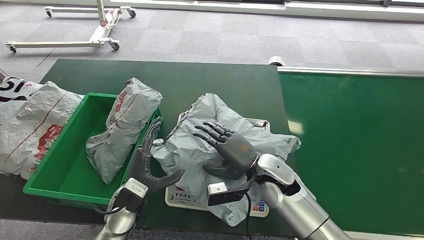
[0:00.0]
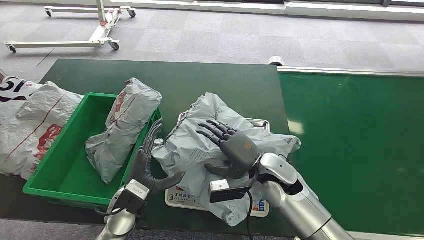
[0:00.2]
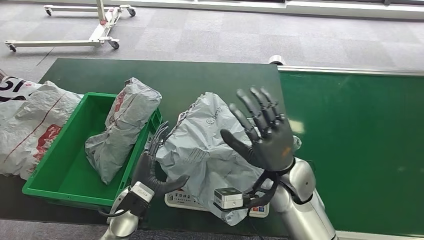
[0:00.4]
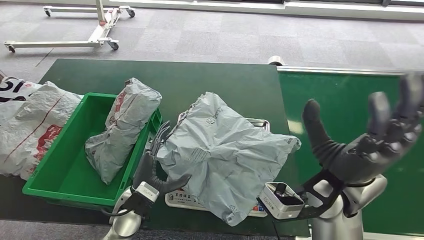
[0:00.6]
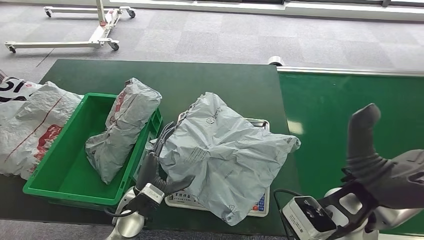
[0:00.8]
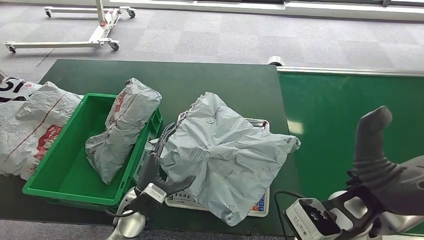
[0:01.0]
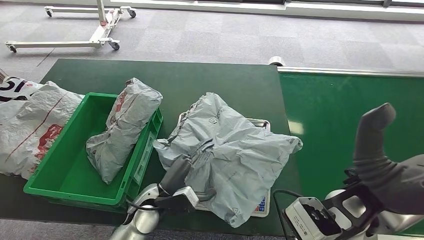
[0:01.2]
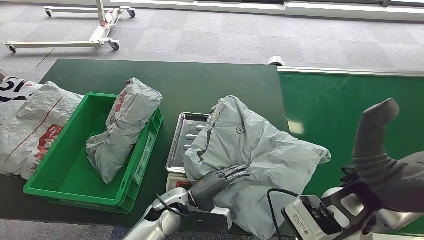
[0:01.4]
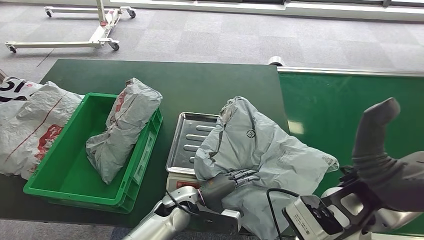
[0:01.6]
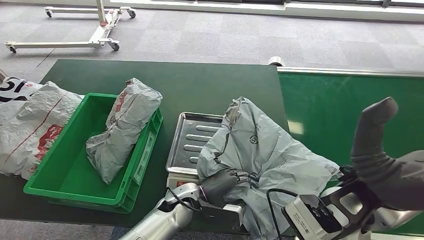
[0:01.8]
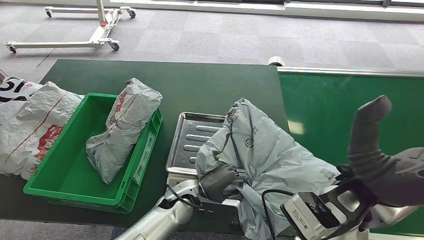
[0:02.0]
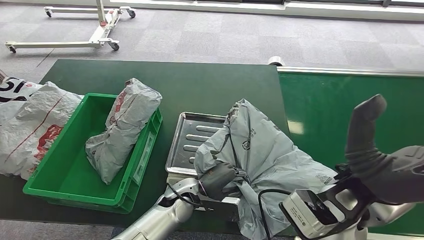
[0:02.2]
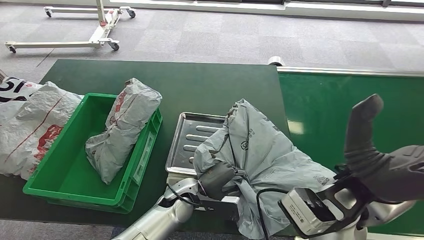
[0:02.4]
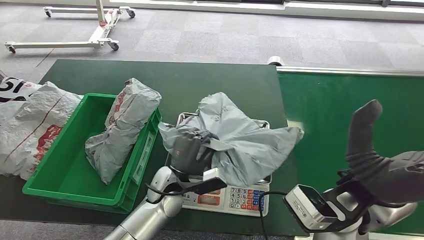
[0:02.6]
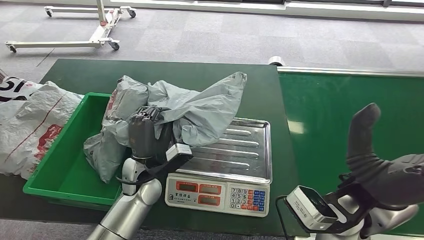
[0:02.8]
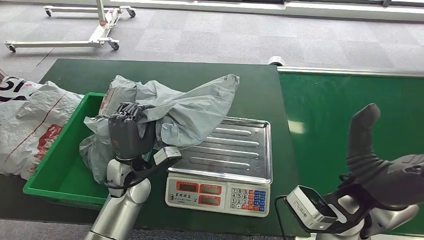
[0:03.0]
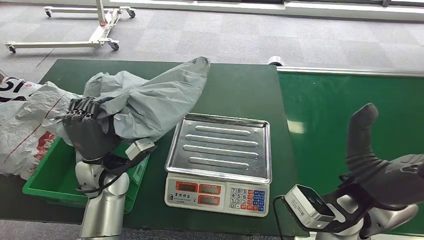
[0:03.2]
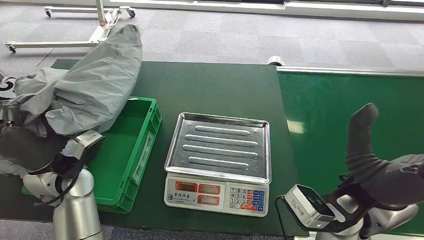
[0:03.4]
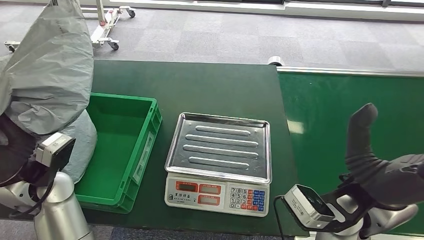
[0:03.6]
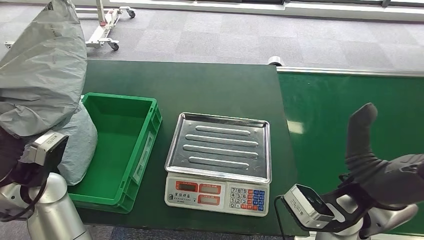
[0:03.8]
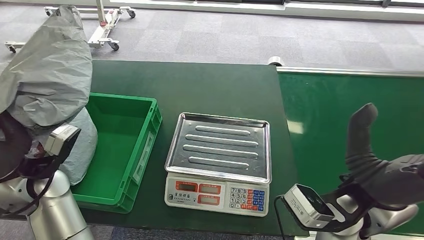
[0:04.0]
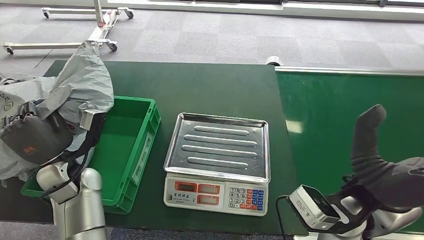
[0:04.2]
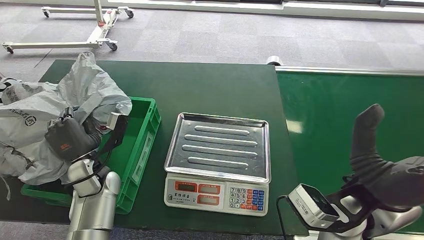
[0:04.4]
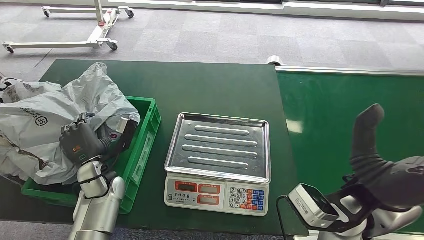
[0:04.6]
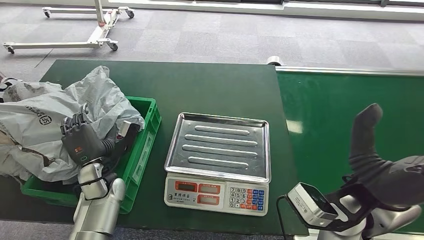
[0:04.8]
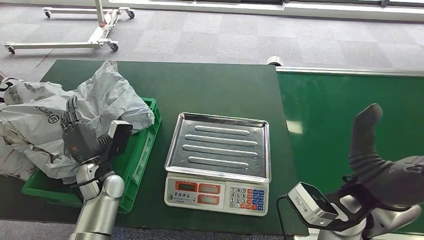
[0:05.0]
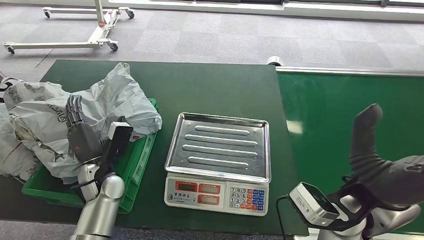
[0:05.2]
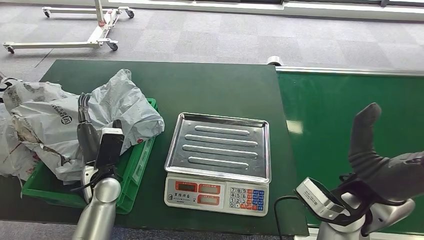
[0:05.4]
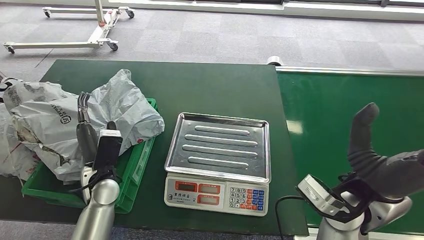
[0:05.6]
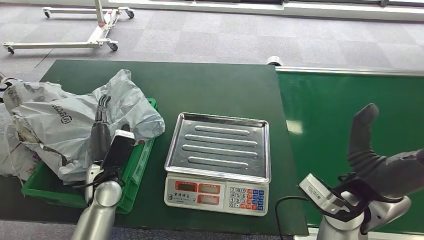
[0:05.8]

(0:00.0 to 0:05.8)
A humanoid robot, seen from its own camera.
Step, 0:00.2 - 0:03.0: Pick up the package from the inbound machine.
Step, 0:03.2 - 0:05.8: Place the package into the parcel locker.

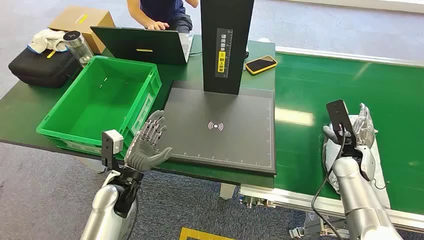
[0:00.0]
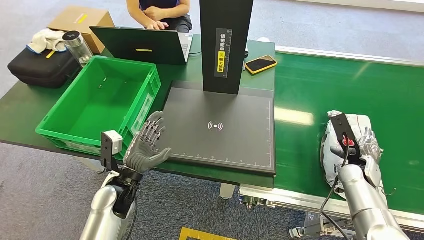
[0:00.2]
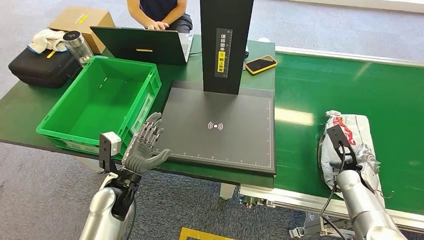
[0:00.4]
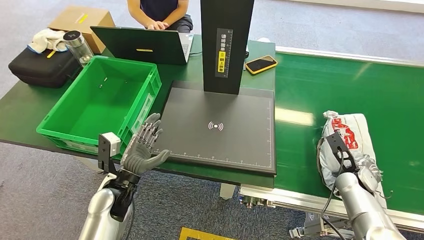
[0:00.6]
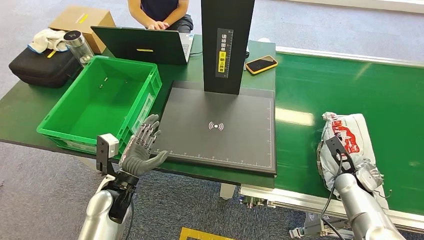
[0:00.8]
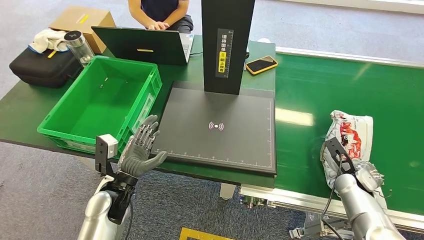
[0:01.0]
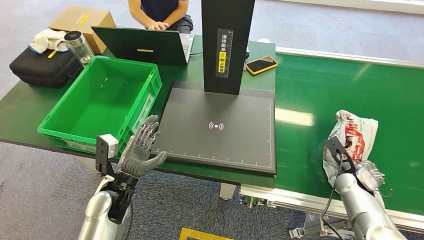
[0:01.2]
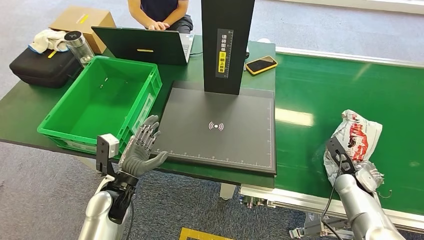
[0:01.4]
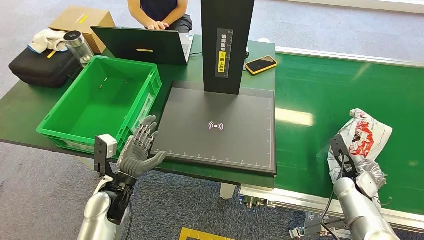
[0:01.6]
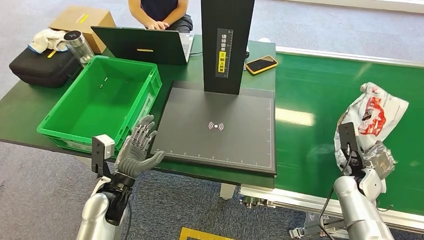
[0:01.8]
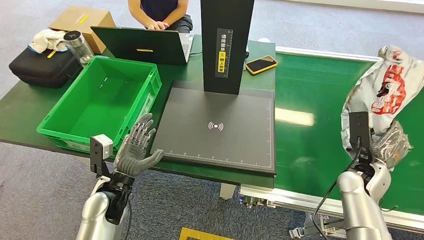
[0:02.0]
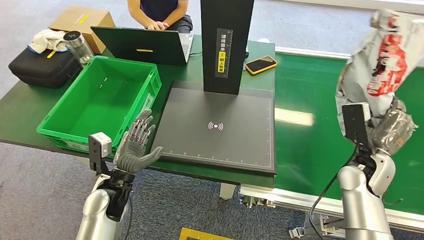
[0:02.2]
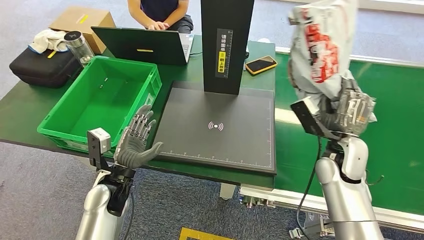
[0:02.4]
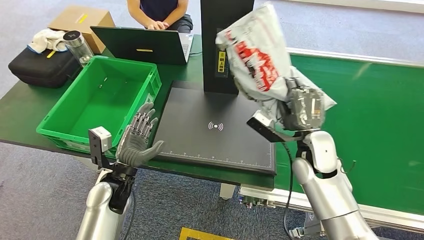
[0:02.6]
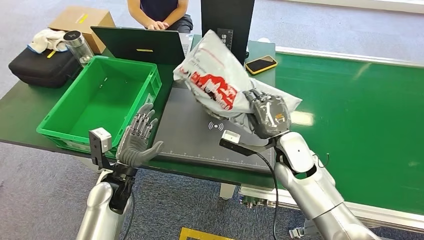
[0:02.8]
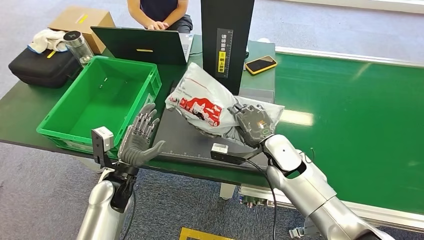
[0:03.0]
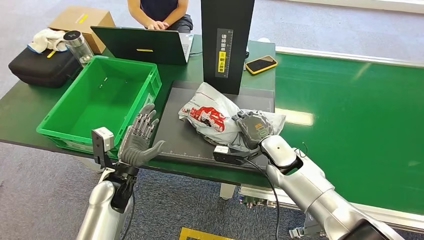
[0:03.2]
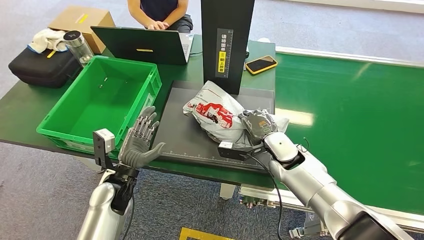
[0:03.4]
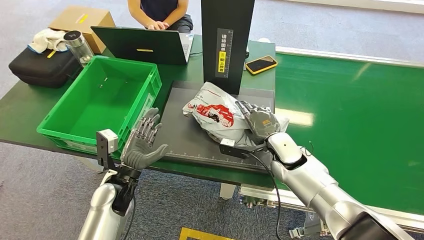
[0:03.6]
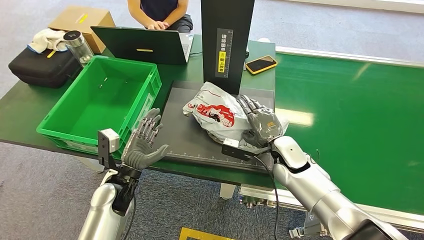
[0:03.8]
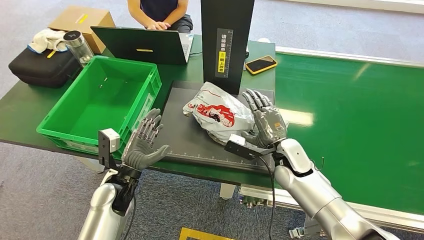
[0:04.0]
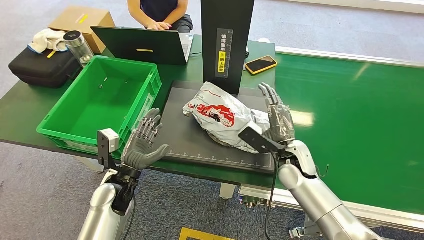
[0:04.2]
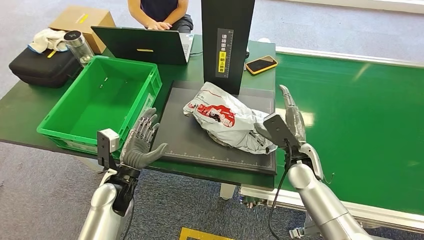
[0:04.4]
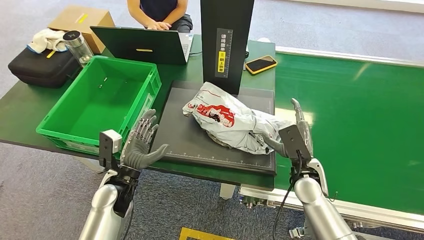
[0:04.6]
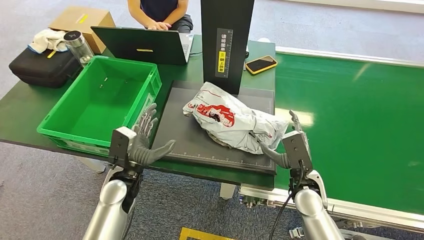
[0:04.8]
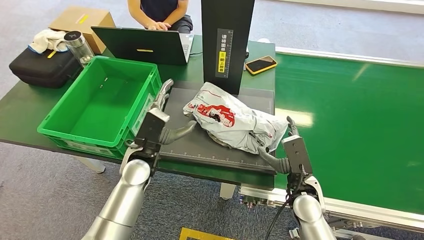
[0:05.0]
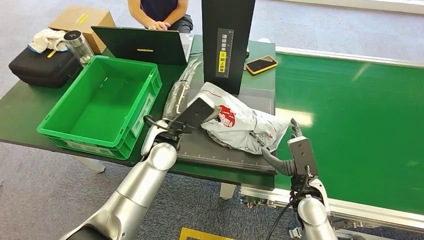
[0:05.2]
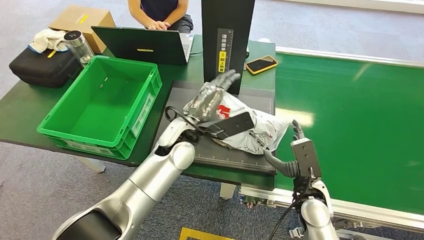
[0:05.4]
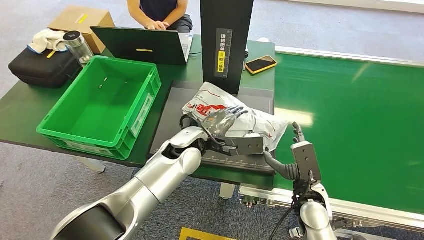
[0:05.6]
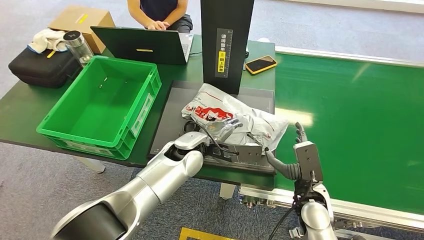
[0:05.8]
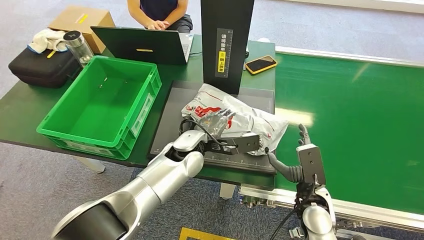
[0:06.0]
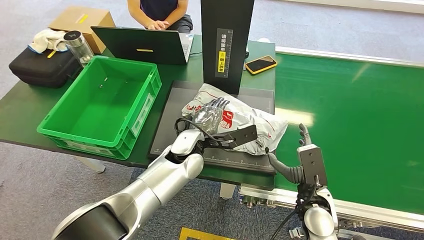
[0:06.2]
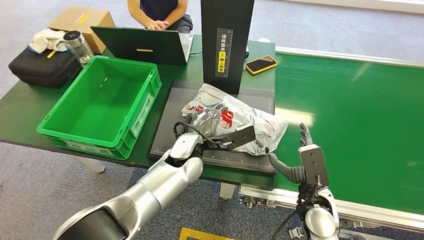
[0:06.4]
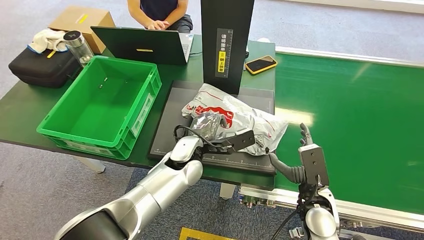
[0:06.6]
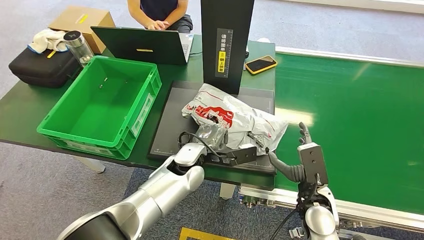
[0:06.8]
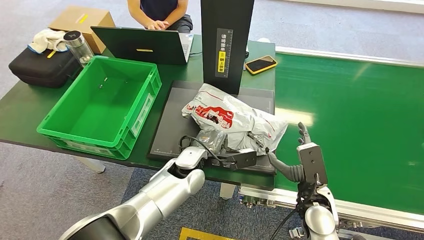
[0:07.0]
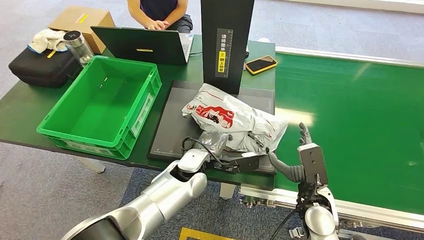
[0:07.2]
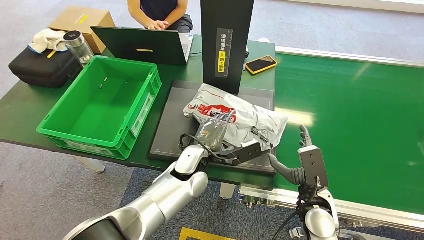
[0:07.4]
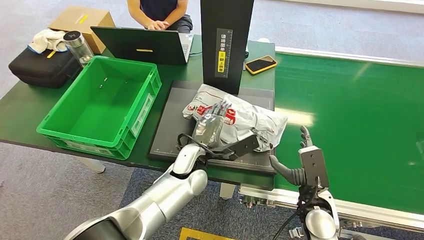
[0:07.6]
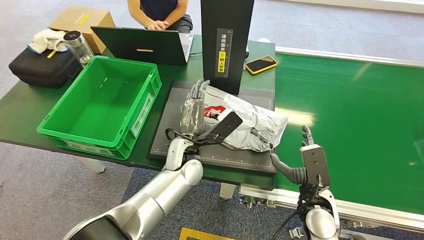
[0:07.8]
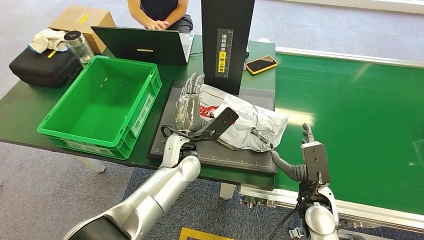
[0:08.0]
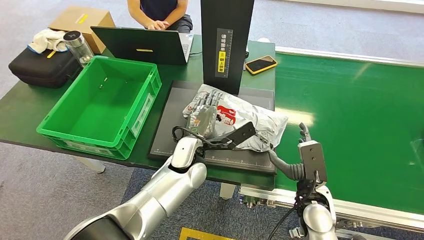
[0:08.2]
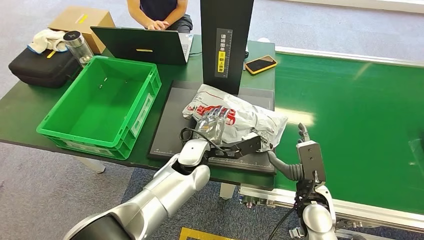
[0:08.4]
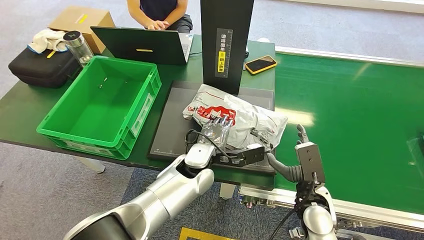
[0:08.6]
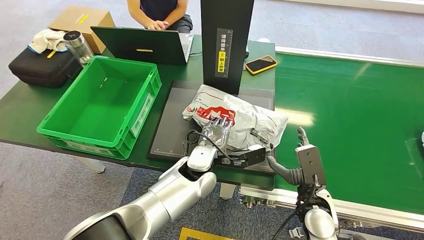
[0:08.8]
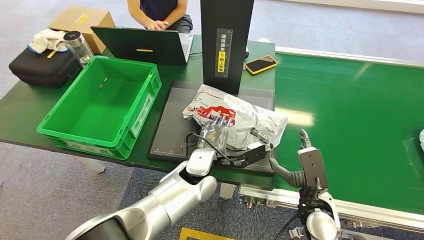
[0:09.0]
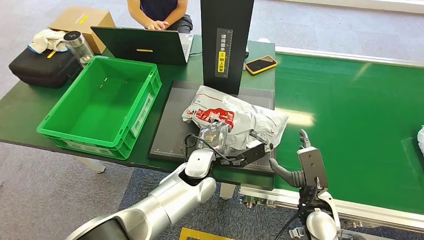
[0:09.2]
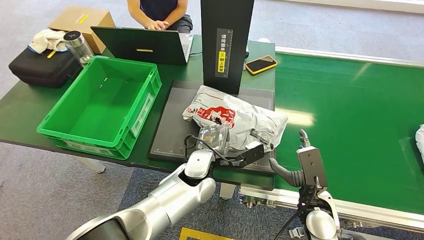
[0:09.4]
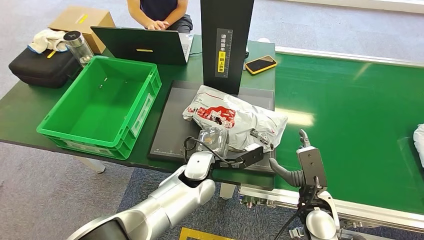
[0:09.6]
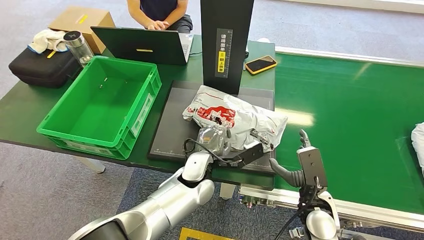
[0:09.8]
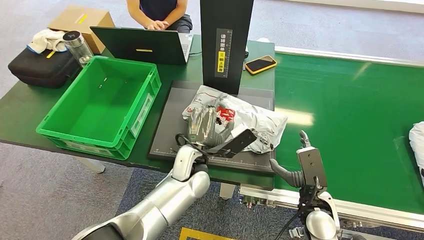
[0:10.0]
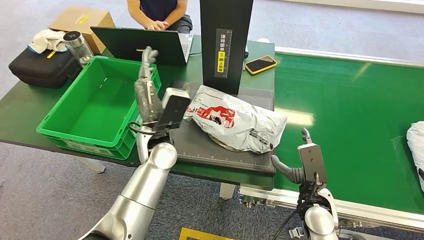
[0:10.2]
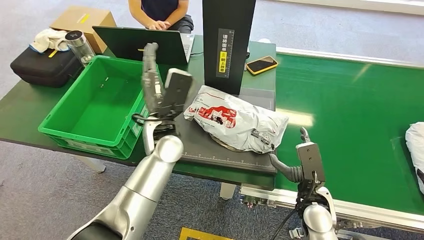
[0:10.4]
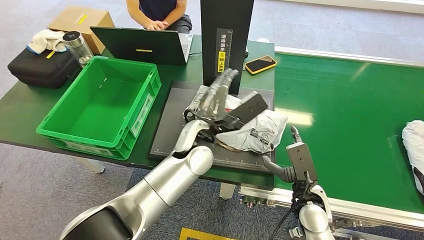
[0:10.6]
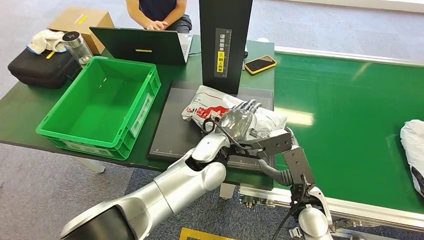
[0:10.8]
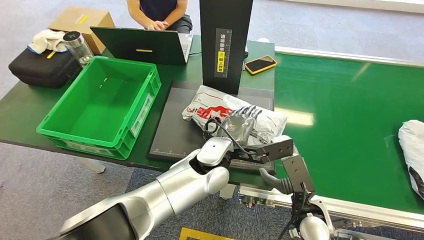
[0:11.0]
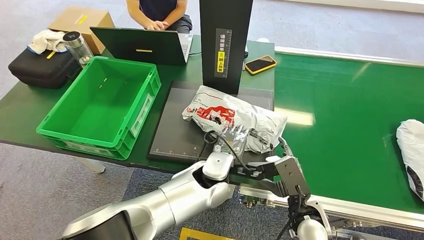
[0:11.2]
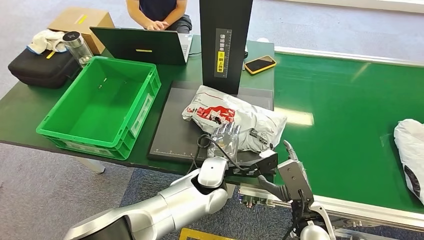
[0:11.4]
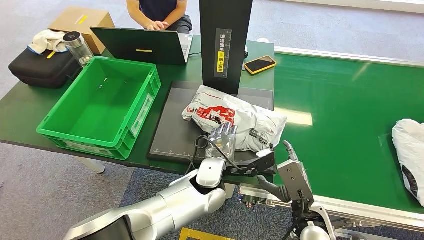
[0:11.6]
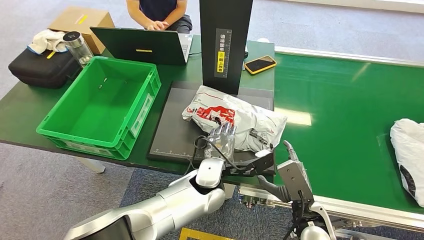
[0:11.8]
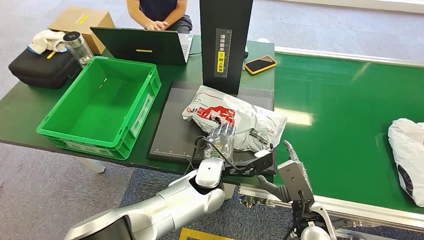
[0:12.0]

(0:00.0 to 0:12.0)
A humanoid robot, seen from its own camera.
Step, 0:00.0 - 0:02.6: Pick up the package from the conveyor belt.
Step, 0:02.8 - 0:05.0: Place the package onto the inbound machine.
0:01.6 - 0:03.0: The right hand moves to the left and upward, roughly 25 cm.
0:03.0 - 0:04.4: The right hand shifts about 5 cm to the right.
0:04.4 - 0:06.0: The left hand heads to the right, forward and upward, covering about 15 cm. The right hand moves backward and downward, roughly 10 cm.
0:06.0 - 0:07.6: The left hand shifts by roughly 5 cm.
0:09.0 - 0:10.4: The left hand goes roughly 10 cm upward.
